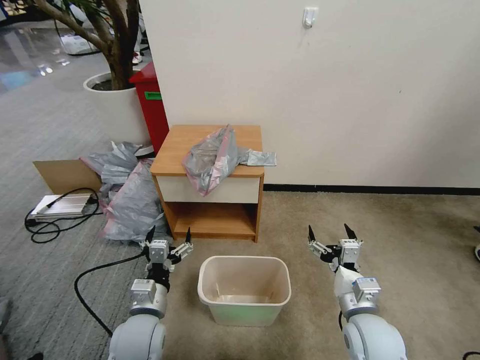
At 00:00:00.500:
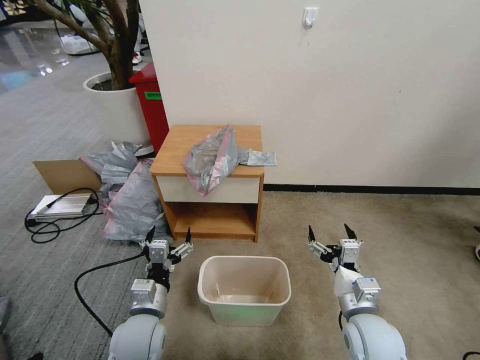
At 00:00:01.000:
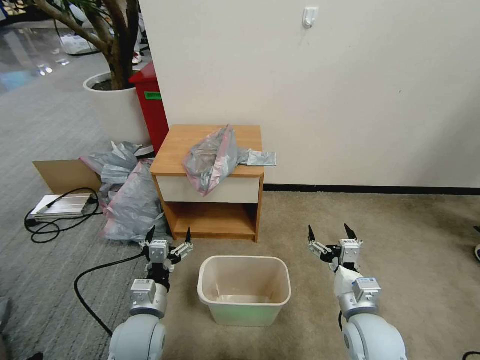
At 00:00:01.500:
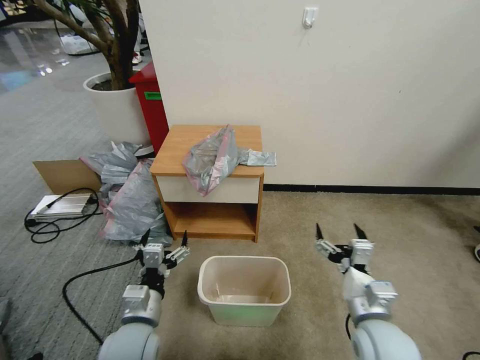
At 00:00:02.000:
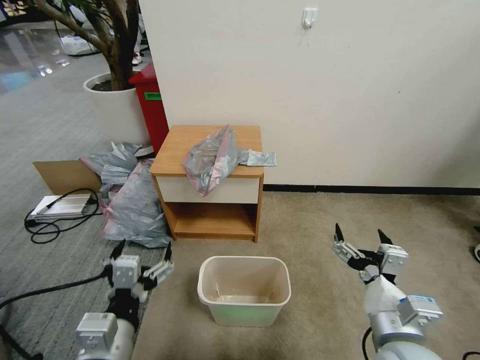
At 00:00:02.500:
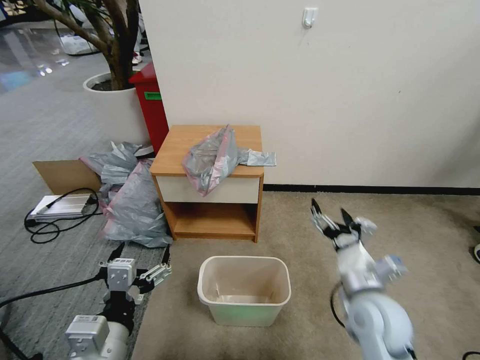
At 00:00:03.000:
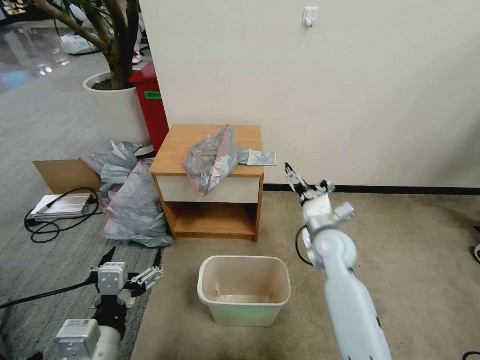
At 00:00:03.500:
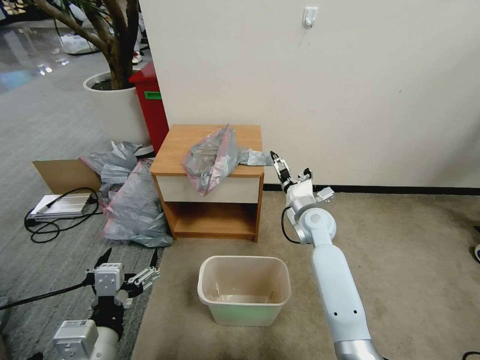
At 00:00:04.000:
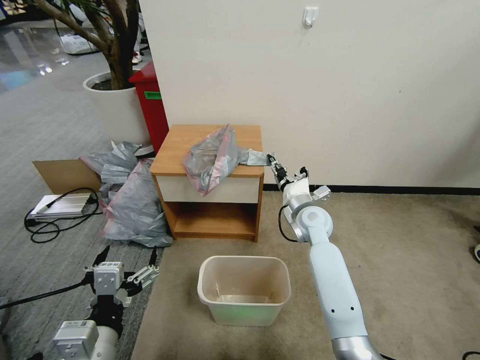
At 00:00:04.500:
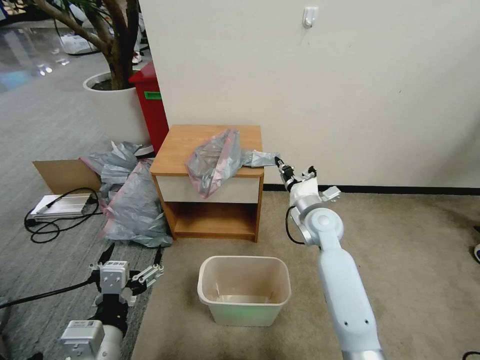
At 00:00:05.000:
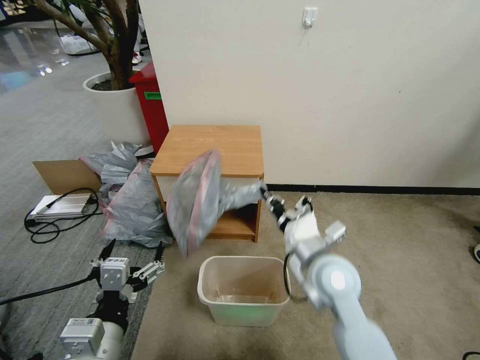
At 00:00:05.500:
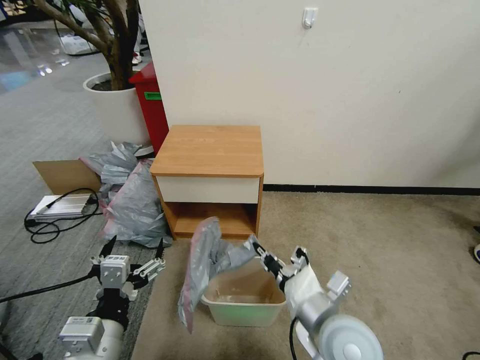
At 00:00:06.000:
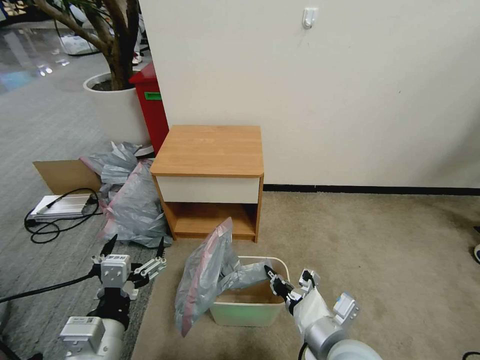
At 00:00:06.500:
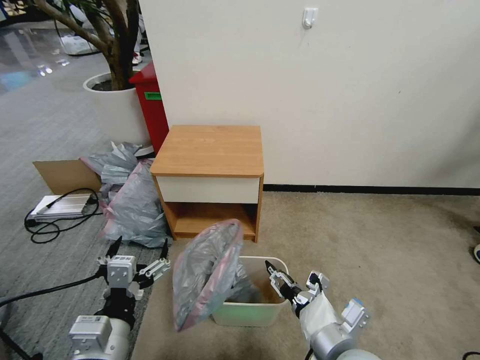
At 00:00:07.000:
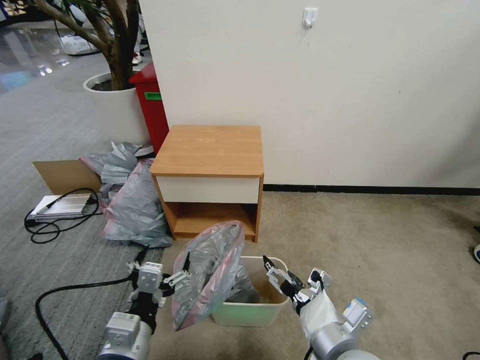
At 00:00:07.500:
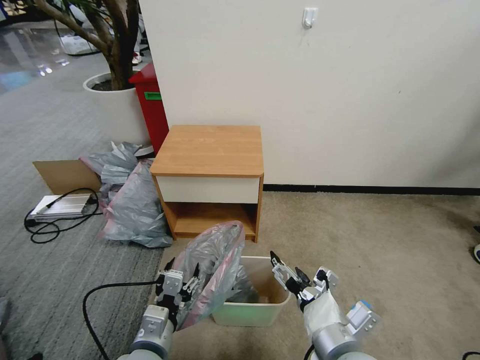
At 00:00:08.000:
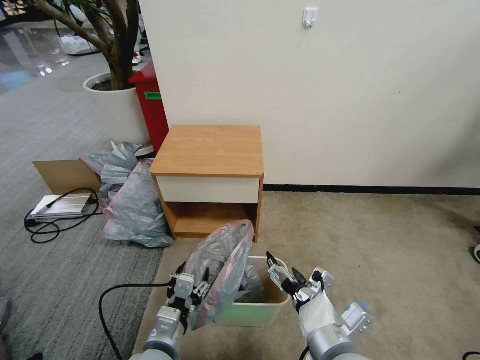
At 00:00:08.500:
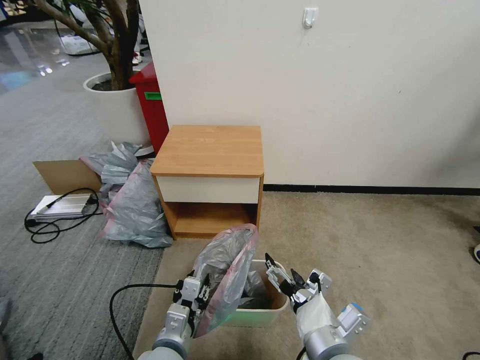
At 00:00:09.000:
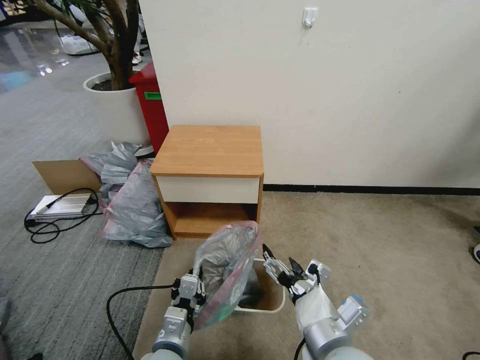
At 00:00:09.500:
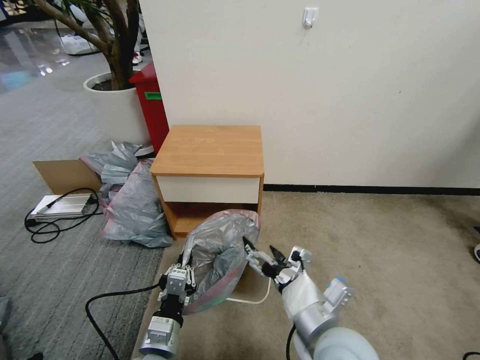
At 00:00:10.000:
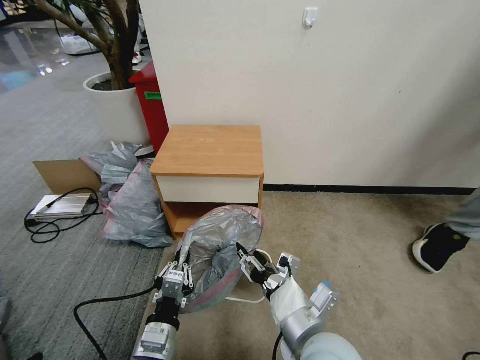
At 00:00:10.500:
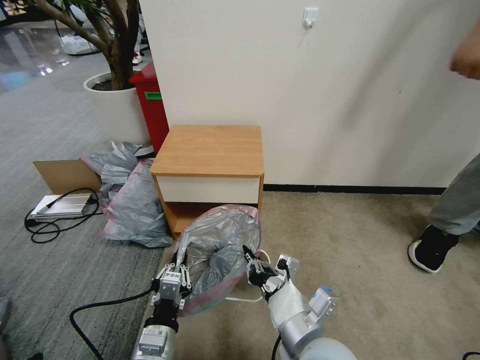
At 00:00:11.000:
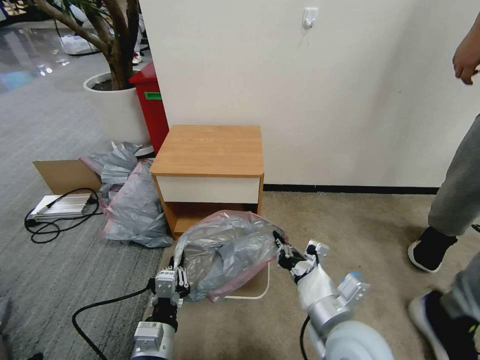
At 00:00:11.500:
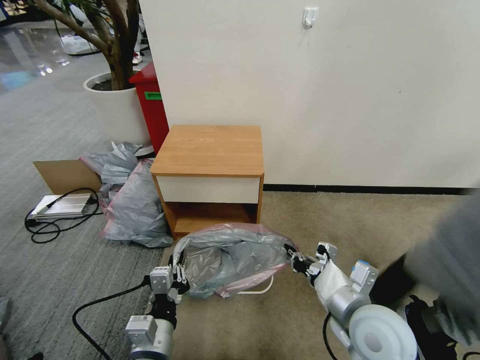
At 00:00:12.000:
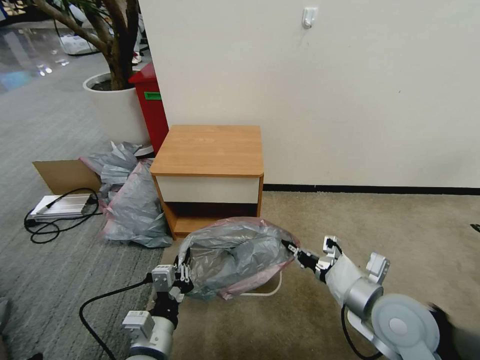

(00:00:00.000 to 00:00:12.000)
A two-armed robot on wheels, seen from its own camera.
Task of the whole recording: Pick up the garbage bag from the table and place it over the trash can.
00:00:02.000 - 00:00:04.000: The right gripper is displaced forward by roughly 30 cm, and closes.
00:00:04.000 - 00:00:06.000: The right gripper heads backward, covering approximately 30 cm, and closes its fingers.
00:00:06.000 - 00:00:08.000: The left gripper travels downward and to the right by some 15 cm; the right gripper opens up.
00:00:08.000 - 00:00:10.000: The right gripper closes its fingers. The left gripper closes its fingers.
00:00:10.000 - 00:00:12.000: The right gripper heads to the right and forward, covering approximately 15 cm, and closes its fingers.

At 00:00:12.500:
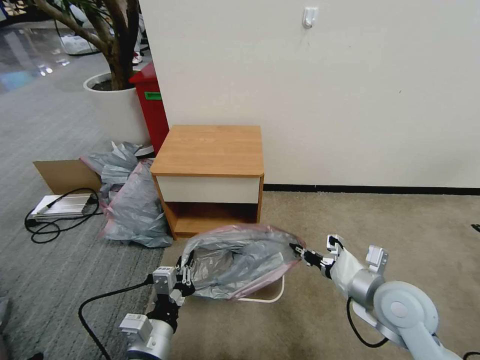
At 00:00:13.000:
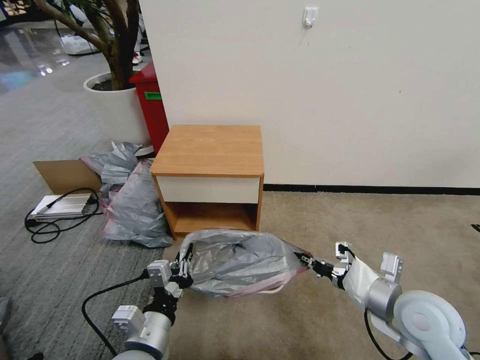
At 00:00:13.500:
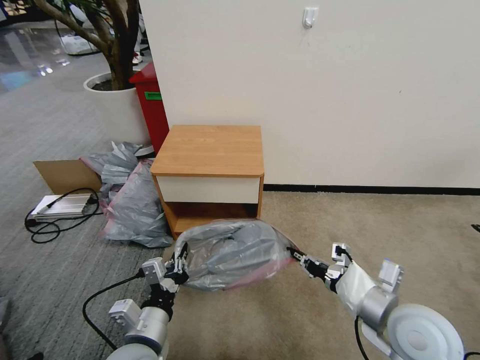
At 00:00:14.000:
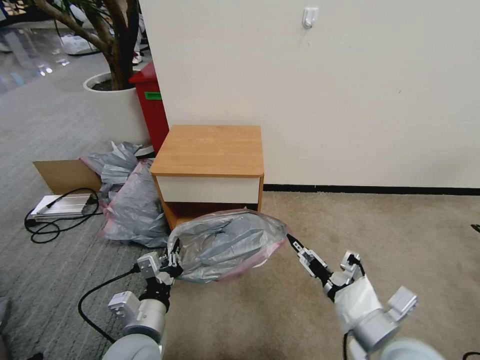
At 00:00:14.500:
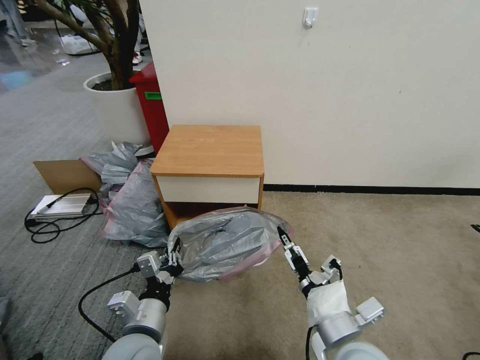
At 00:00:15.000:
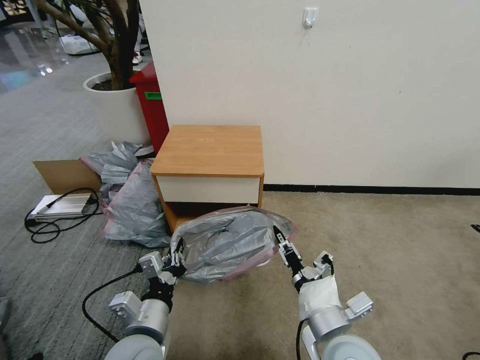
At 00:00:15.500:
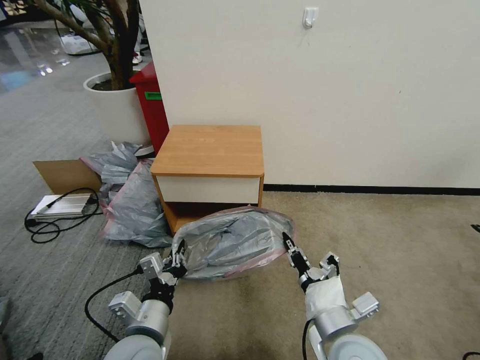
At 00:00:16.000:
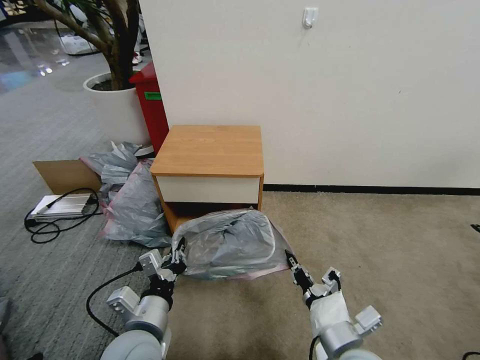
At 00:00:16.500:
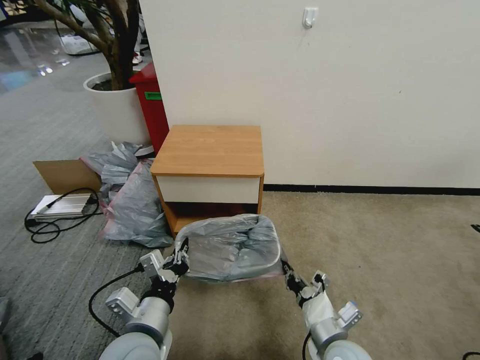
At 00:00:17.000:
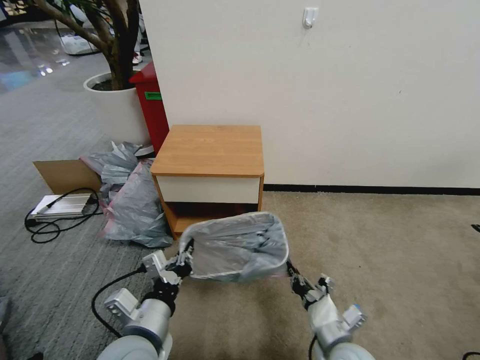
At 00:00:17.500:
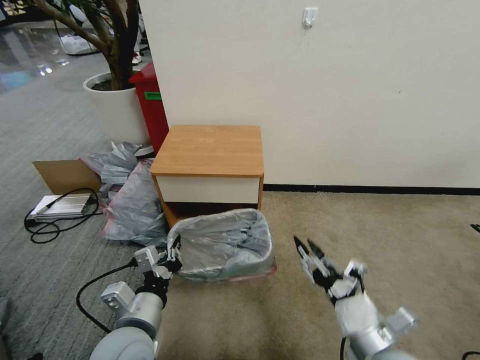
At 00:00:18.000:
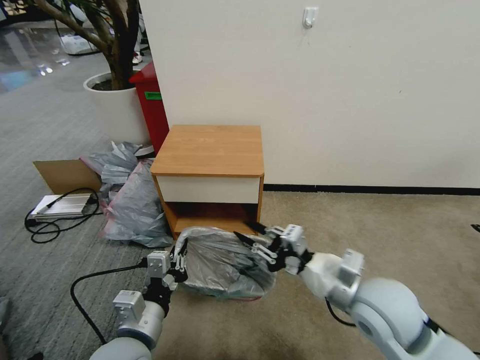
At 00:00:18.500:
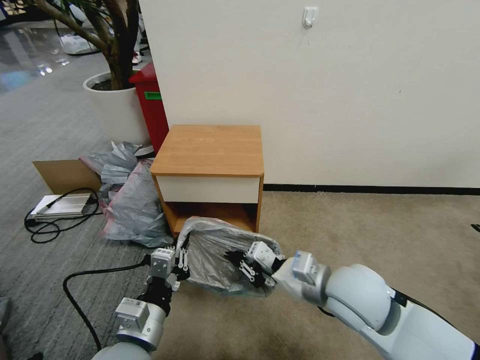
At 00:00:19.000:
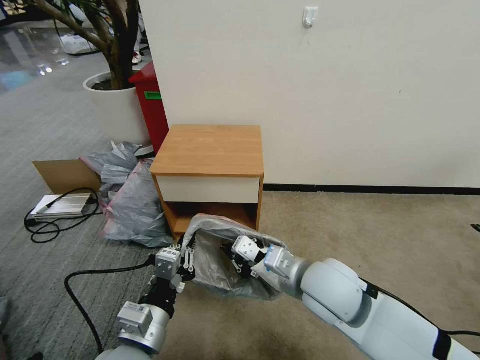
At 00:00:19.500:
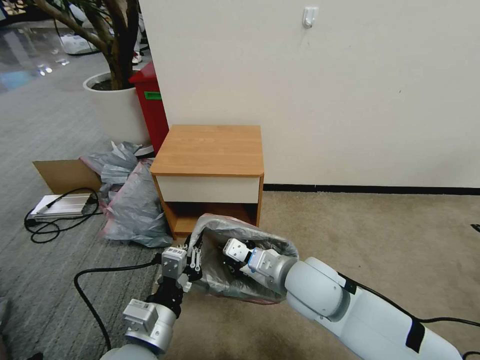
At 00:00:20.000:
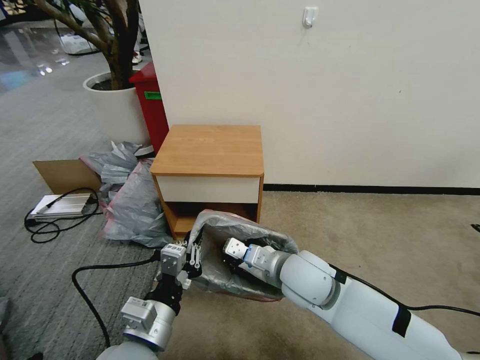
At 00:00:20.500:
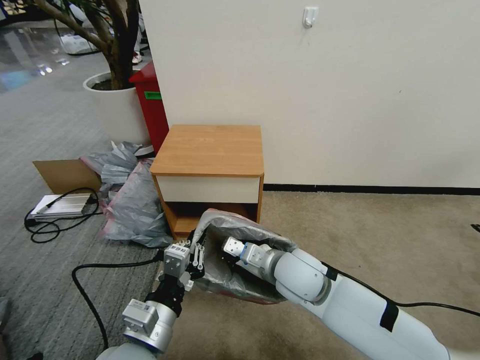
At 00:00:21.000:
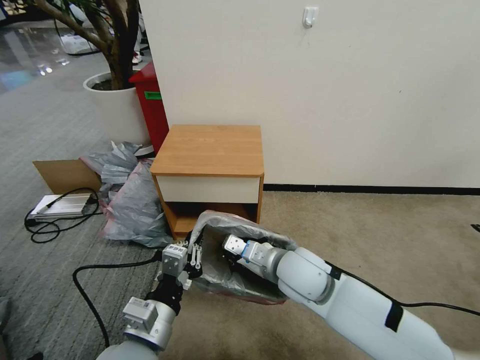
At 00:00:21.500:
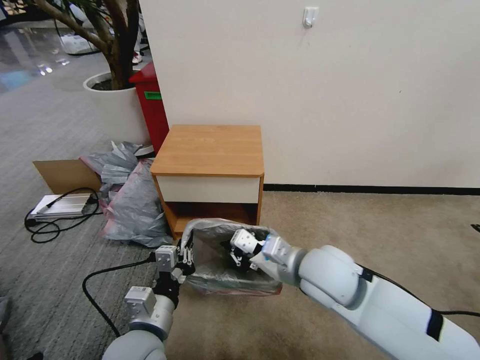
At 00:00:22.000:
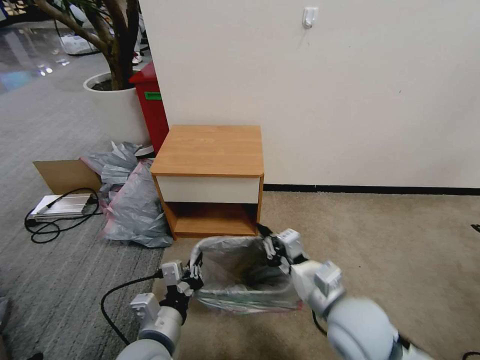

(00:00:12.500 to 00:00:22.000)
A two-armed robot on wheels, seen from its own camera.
Task of the whole recording: Pick up the garbage bag from the table and place it over the trash can.
00:00:12.500 - 00:00:14.500: The right gripper shifts roughly 15 cm to the left and backward, and opens up.
00:00:14.500 - 00:00:16.500: The right gripper travels downward by some 10 cm, and closes.
00:00:16.500 - 00:00:18.000: The right gripper moves upward, some 15 cm.
00:00:18.000 - 00:00:20.000: The right gripper is displaced to the left and forward by roughly 15 cm.
00:00:20.000 - 00:00:22.000: The right gripper goes some 10 cm backward and to the right. Meanwhile the left gripper heads downward, covering roughly 5 cm.

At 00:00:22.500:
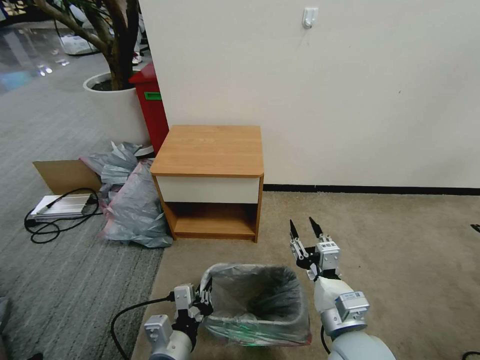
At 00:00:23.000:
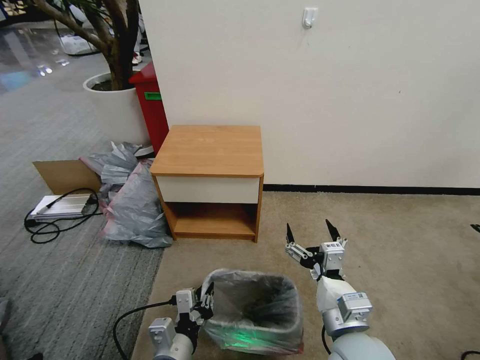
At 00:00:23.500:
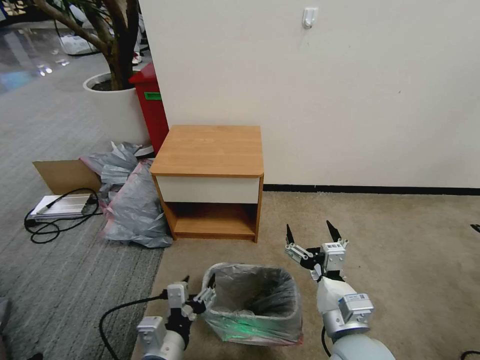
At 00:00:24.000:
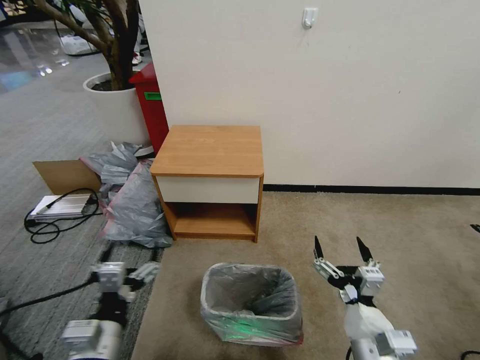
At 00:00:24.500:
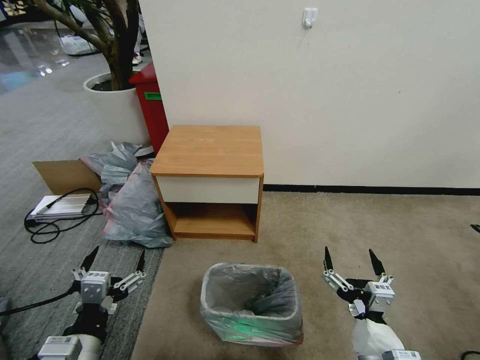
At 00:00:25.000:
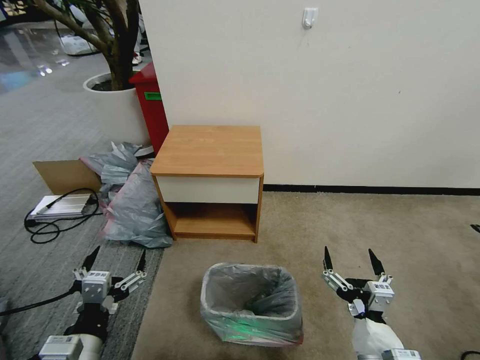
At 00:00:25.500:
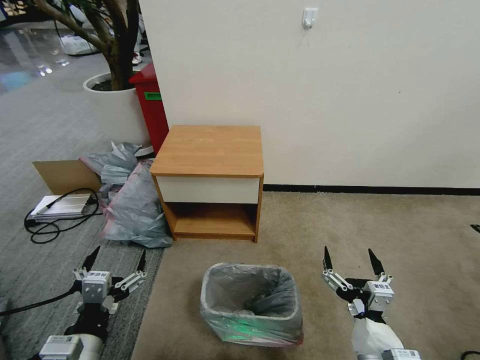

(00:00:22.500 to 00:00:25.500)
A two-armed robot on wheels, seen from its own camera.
Task of the whole recording: Pick up the garbage bag from the table and place it over the trash can.
00:00:22.500 - 00:00:24.000: The right gripper changes place by approximately 5 cm, and opens. The left gripper is displaced to the left and upward by about 10 cm, and opens.
00:00:24.000 - 00:00:25.500: There are only small adjustments of the grippers.
